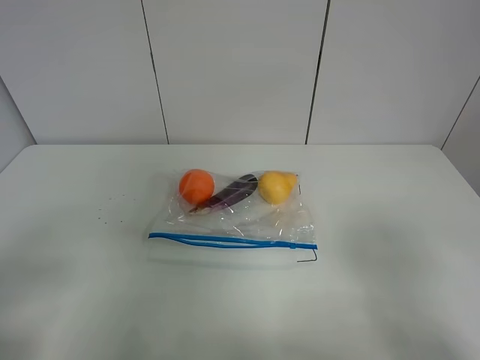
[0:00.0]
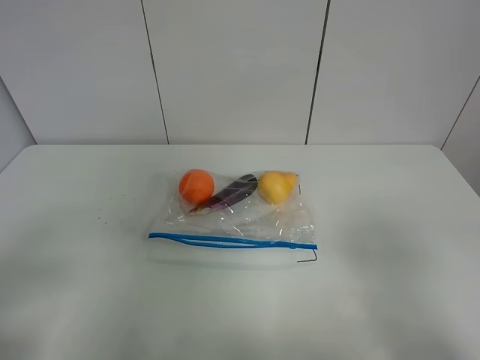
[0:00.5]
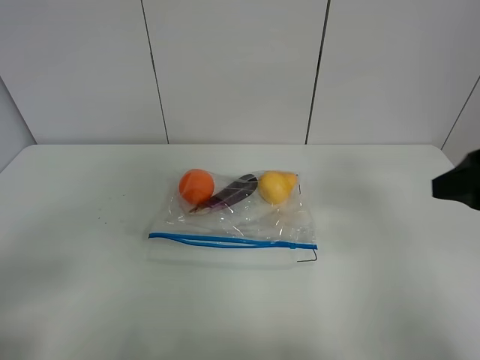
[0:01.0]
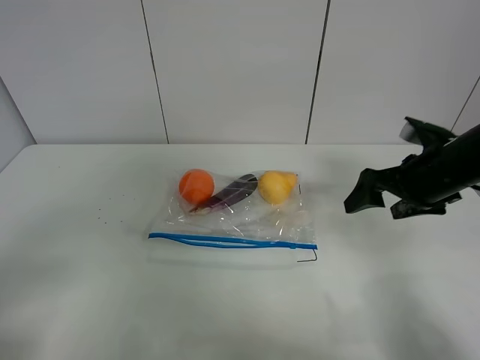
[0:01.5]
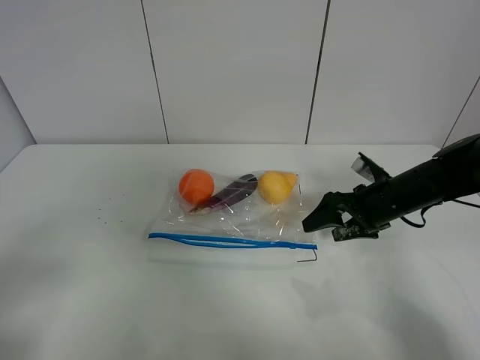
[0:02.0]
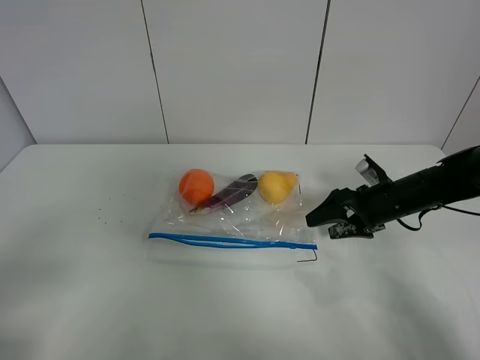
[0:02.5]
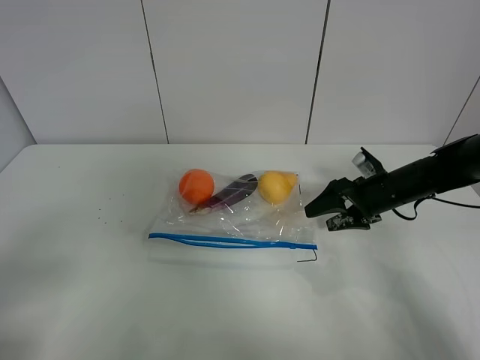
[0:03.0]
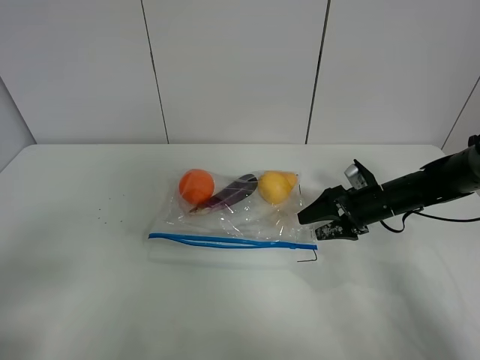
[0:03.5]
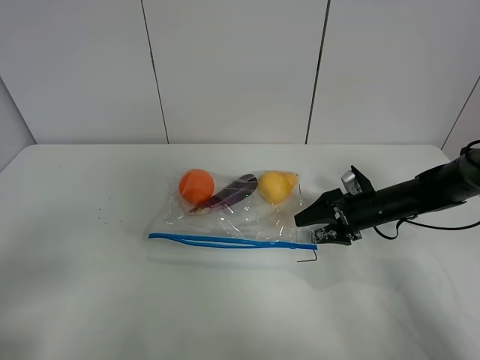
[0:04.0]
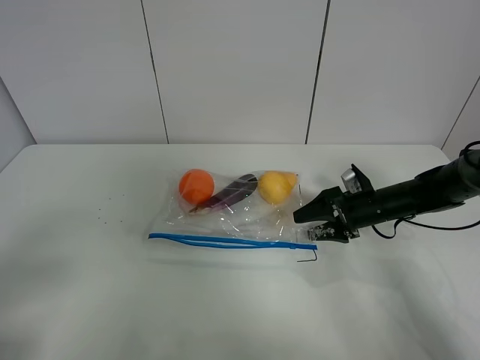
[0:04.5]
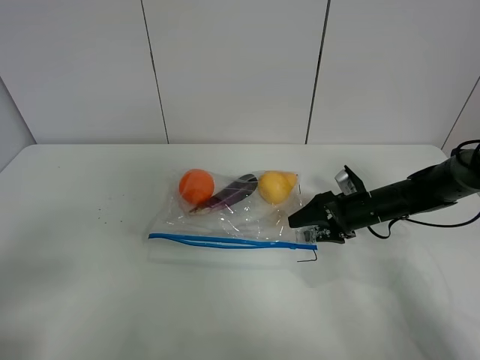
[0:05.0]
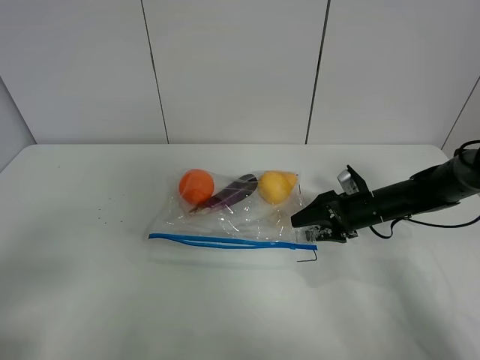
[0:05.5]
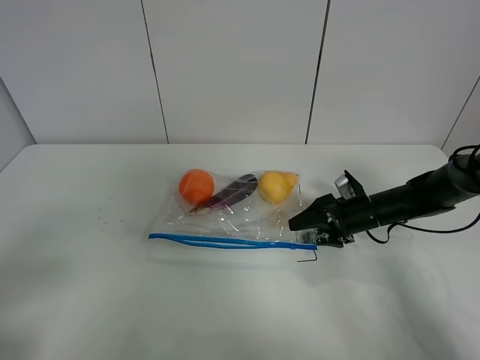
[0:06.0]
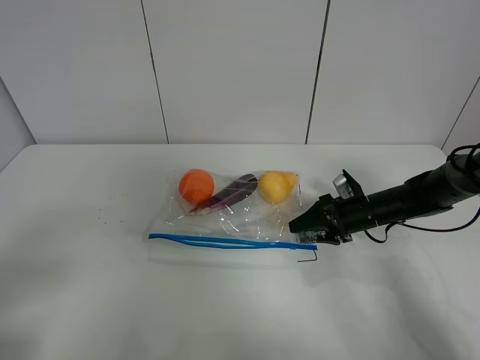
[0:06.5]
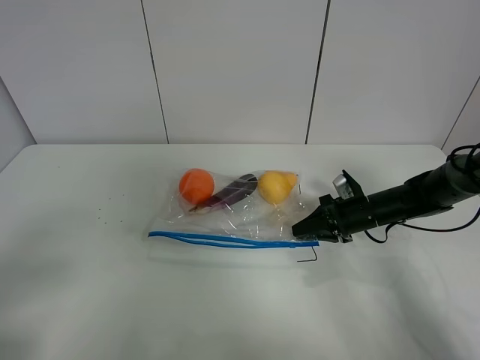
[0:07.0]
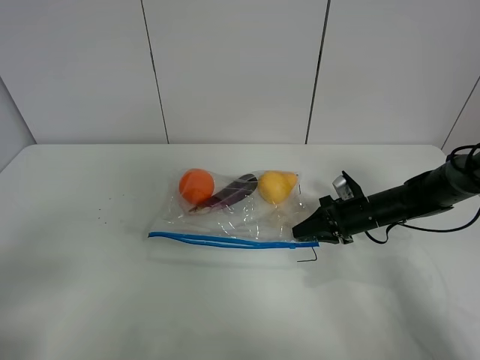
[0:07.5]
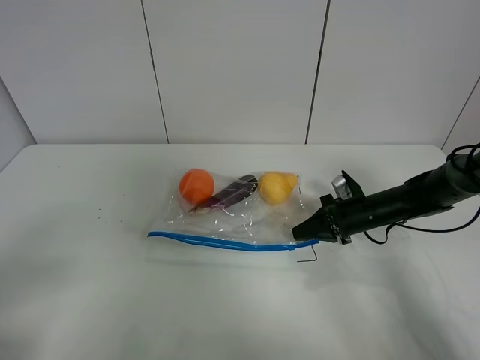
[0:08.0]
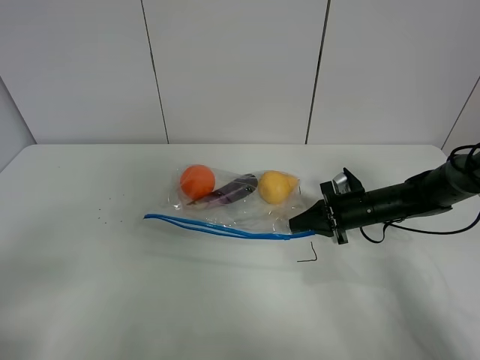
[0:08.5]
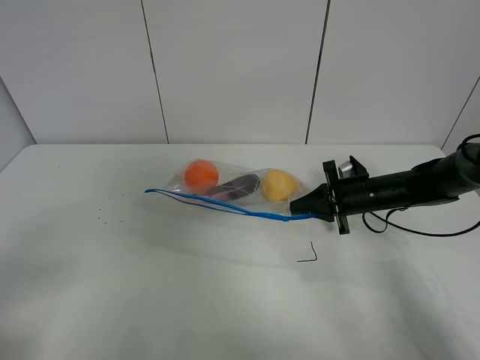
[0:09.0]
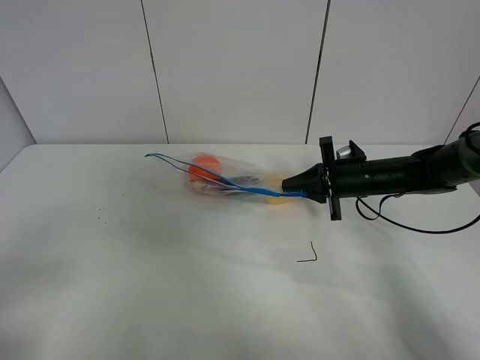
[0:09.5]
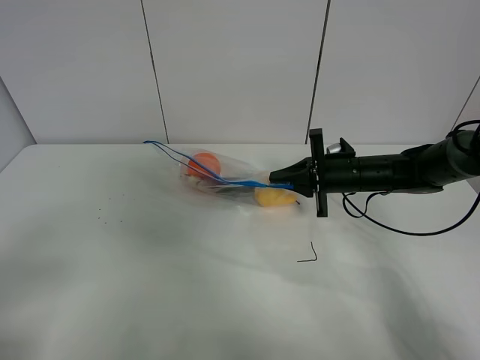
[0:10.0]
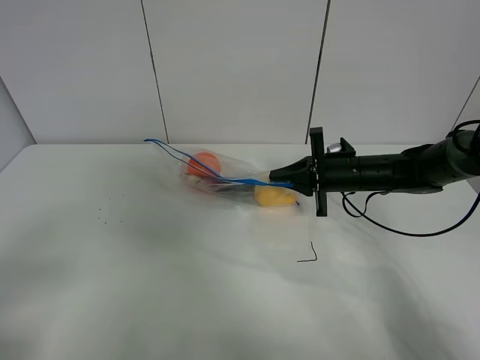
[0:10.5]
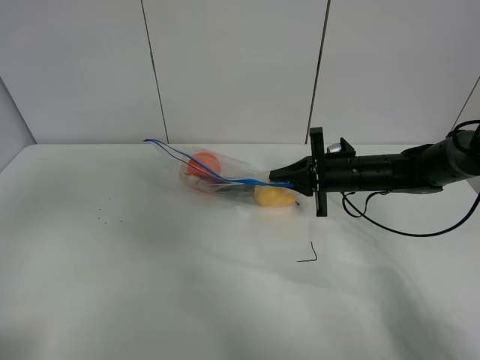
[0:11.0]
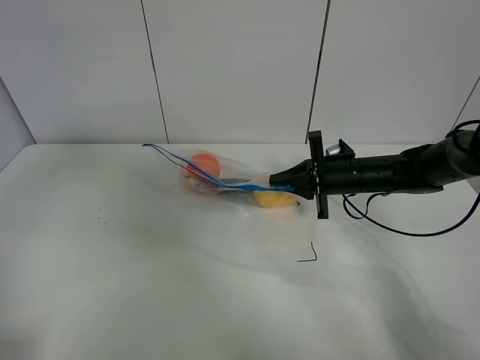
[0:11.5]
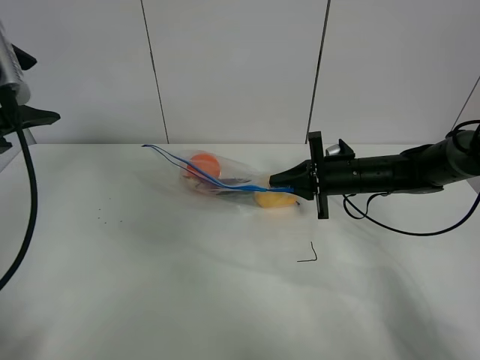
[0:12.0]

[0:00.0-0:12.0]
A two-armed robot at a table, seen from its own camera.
Step, 0:00.0 to 0:07.5: Grasp the fruit bag with right gripper.
Step, 0:08.0 to 0:10.0: Lift the fruit bag with your right gripper.
0:00.0 to 0:02.0: The right gripper travels forward and downward by roughly 35 cm.
0:02.0 to 0:04.0: The right gripper moves downward, about 5 cm.
0:04.0 to 0:06.0: The grippers move only a little.
0:06.0 to 0:08.0: The right gripper closes its fingers.
0:08.0 to 0:10.0: The right gripper heads upward, covering some 5 cm.
0:10.0 to 0:12.0: The left gripper is displaced forward by approximately 25 cm.

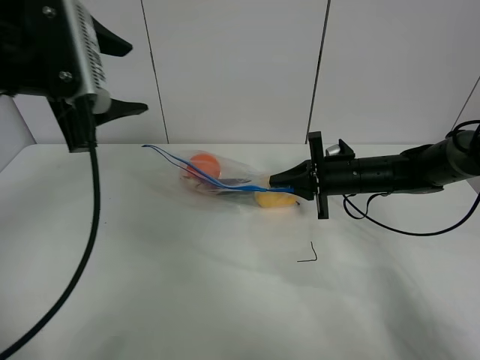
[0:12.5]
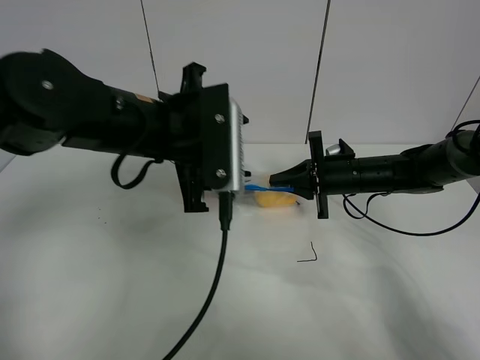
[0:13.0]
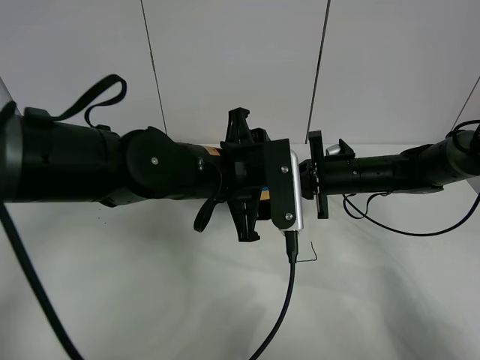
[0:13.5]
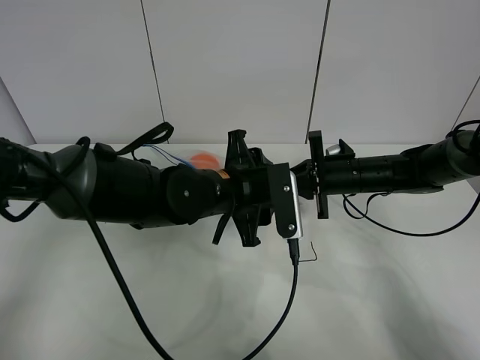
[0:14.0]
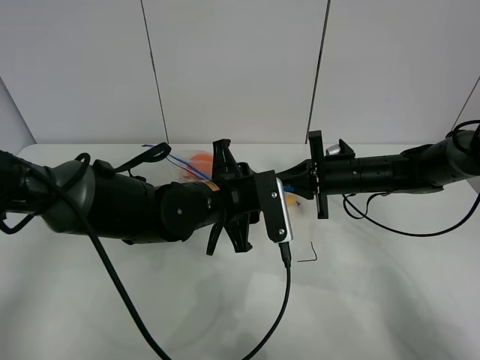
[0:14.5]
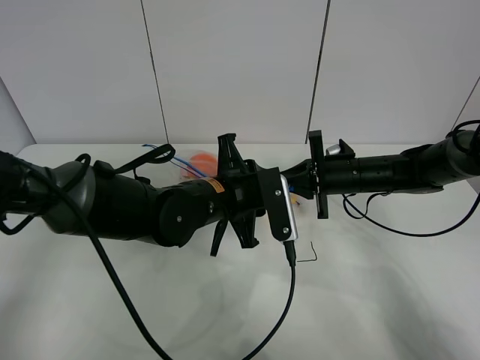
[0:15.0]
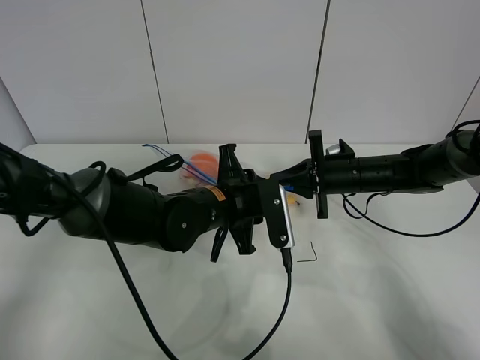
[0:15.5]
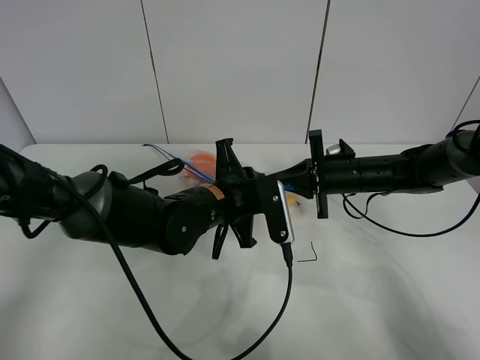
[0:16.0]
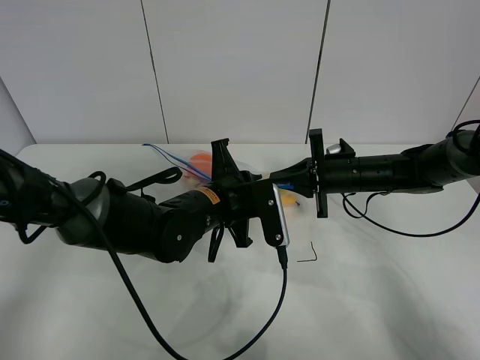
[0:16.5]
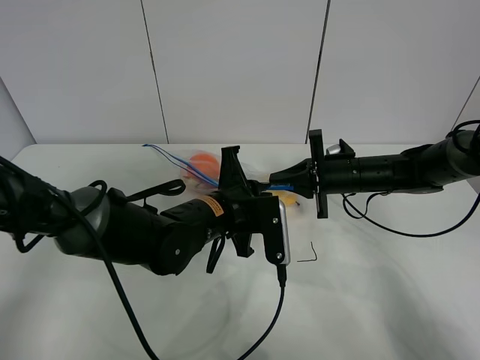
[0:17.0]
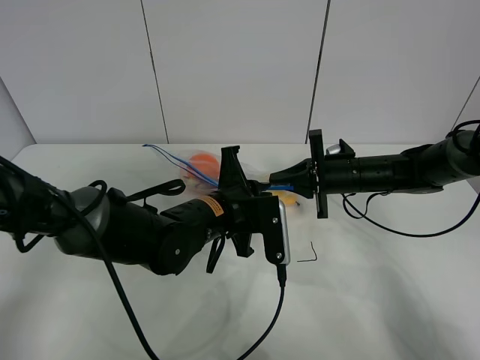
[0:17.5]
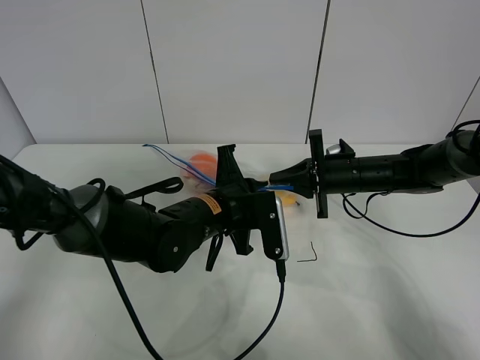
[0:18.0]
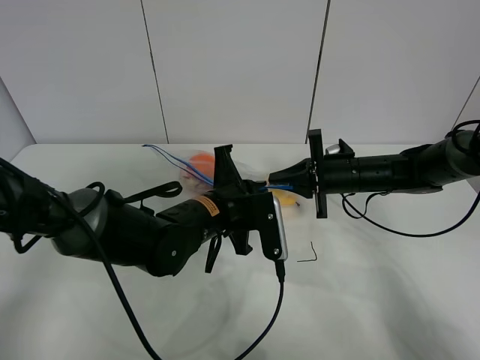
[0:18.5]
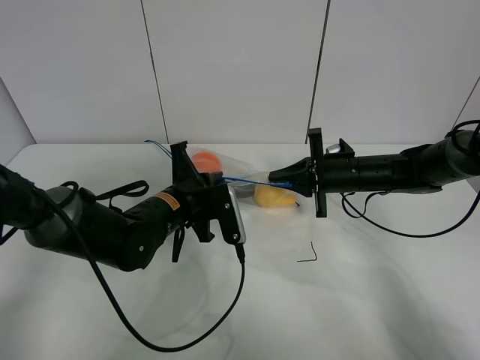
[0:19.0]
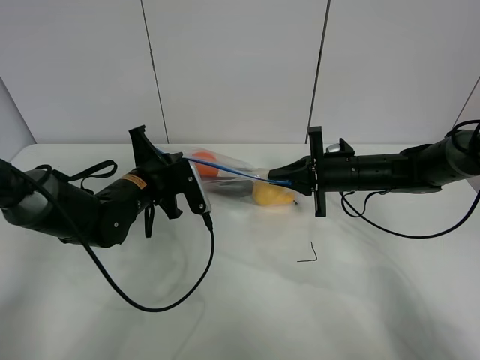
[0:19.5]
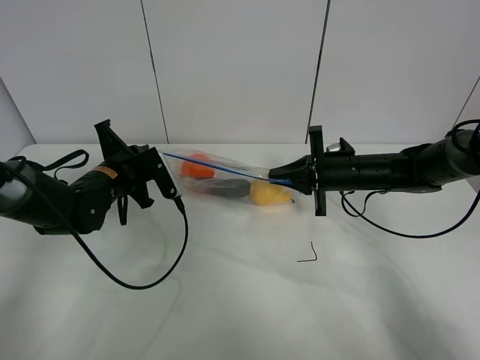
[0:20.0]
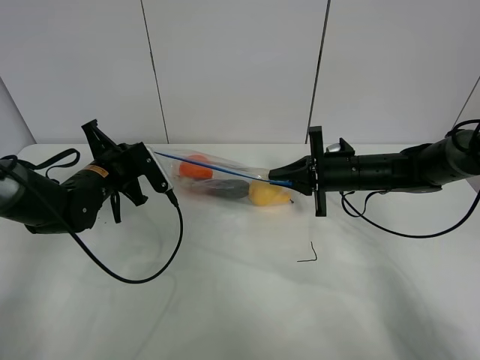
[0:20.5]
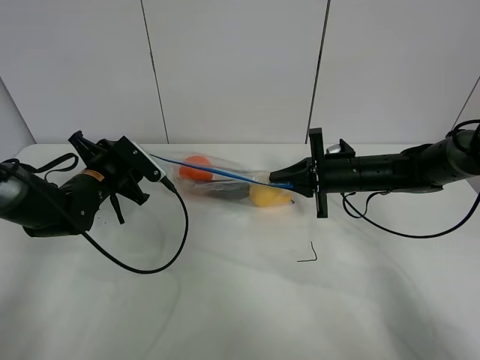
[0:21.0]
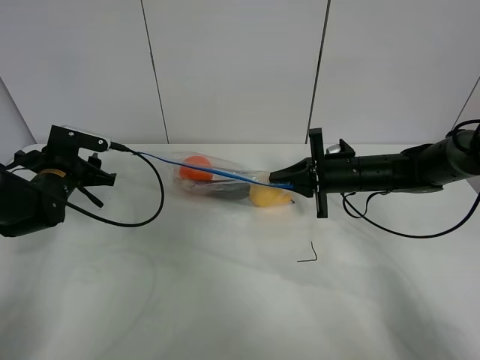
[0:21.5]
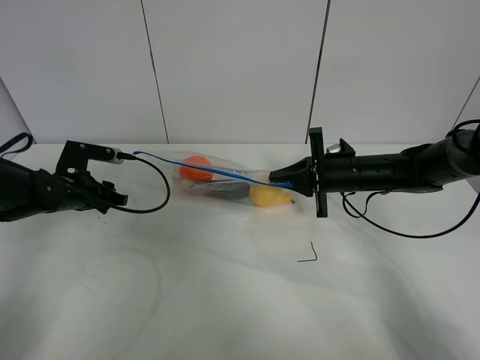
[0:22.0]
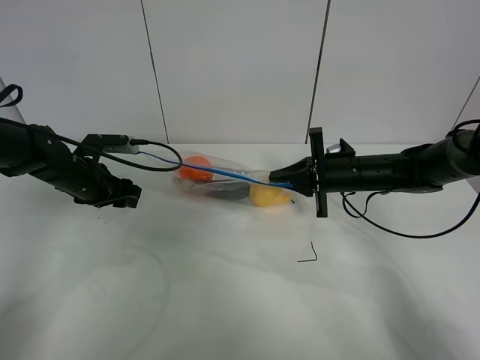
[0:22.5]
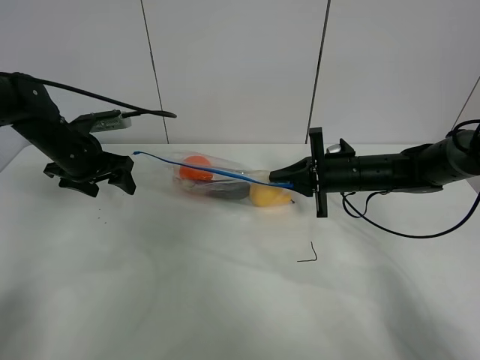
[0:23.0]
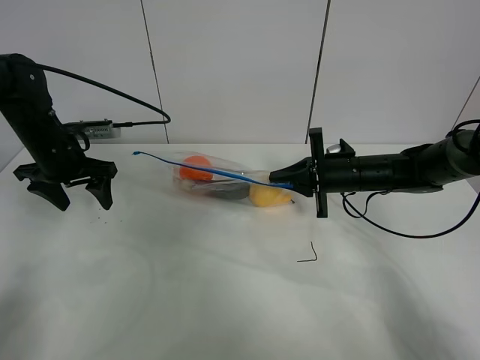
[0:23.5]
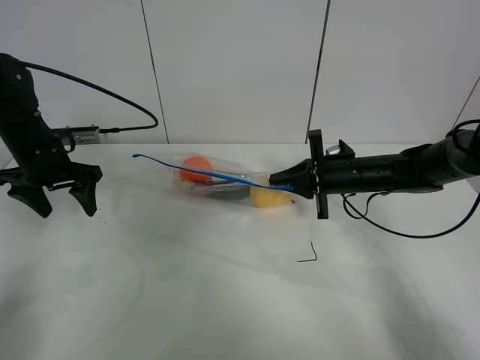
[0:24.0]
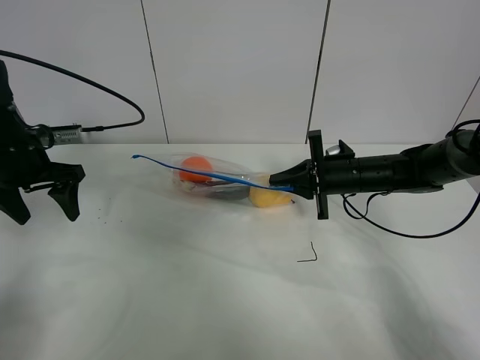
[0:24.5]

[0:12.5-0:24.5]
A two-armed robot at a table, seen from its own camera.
Step, 0:12.5 to 0:21.0: Pull the fruit bag with left gripper.
0:12.5 to 0:14.5: The left gripper is displaced downward and to the right by about 25 cm.
0:14.5 to 0:16.5: The left gripper closes up.
0:16.5 to 0:18.5: The grippers make only small movements.
0:18.5 to 0:20.5: The left gripper moves to the left and forward, some 20 cm.
0:20.5 to 0:22.5: The left gripper goes roughly 5 cm to the left, and opens its fingers.
0:22.5 to 0:24.5: The left gripper travels upward and to the left by approximately 10 cm.

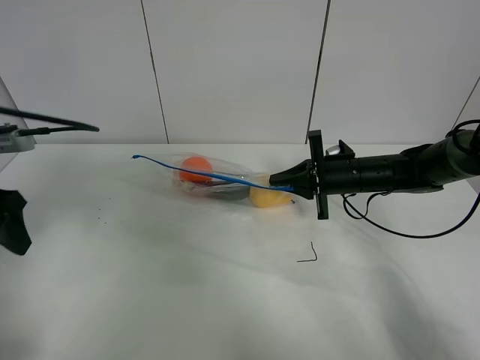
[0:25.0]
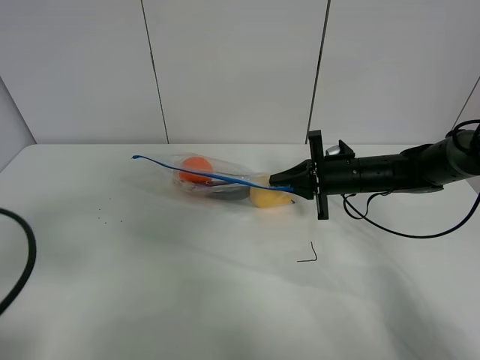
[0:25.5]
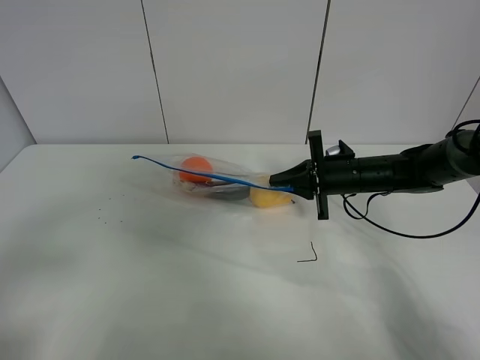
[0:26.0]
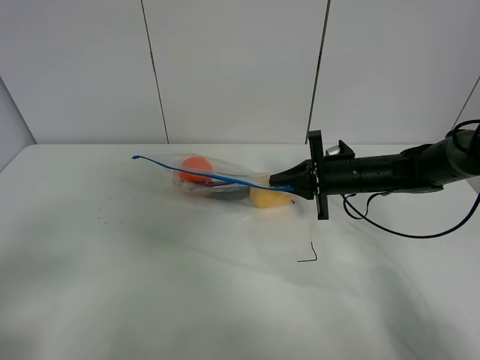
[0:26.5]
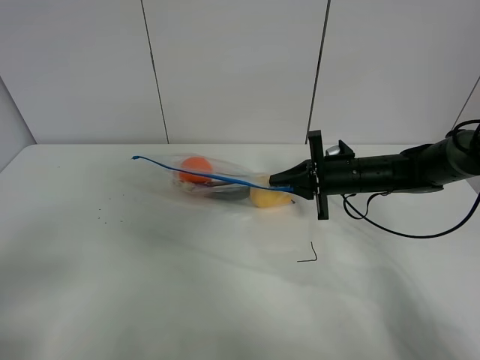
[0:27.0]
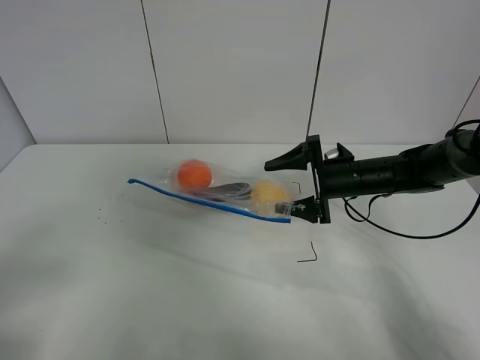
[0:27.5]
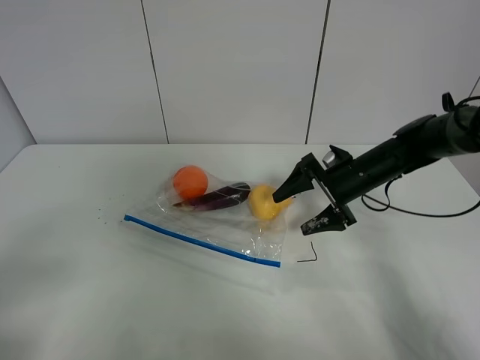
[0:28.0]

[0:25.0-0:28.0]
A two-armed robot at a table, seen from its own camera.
Step, 0:25.0 to 0:28.0: Place the fruit bag with right gripper.
0:25.0 to 0:26.5: The left gripper moves backward, approximately 20 cm.
0:26.5 to 0:28.0: The right gripper opens its fingers.
